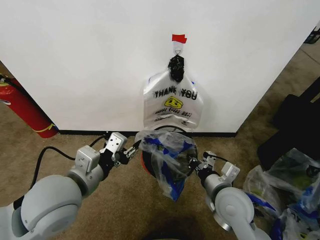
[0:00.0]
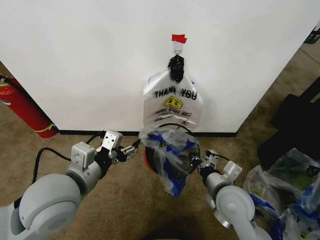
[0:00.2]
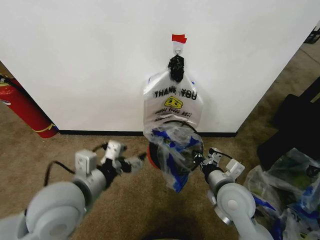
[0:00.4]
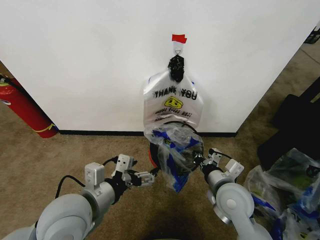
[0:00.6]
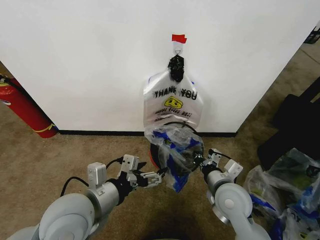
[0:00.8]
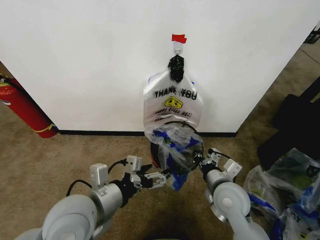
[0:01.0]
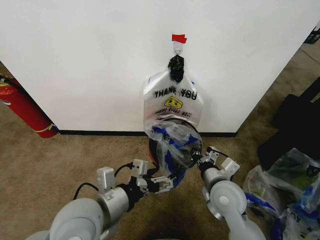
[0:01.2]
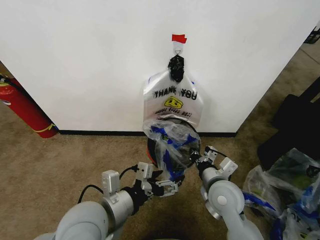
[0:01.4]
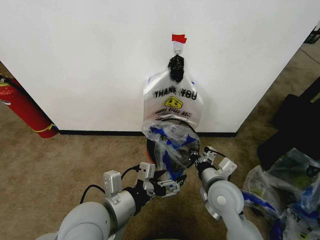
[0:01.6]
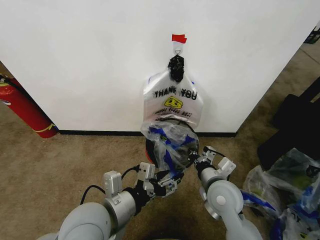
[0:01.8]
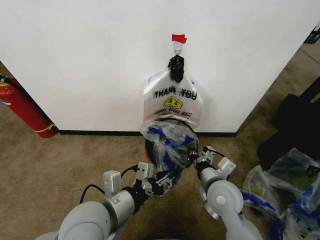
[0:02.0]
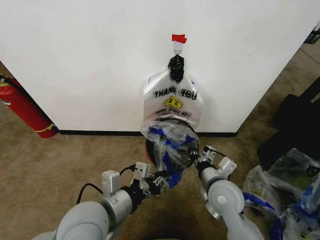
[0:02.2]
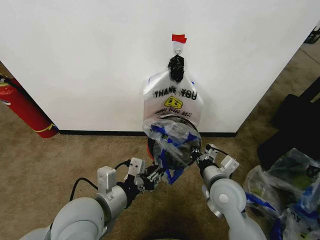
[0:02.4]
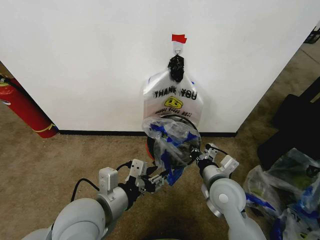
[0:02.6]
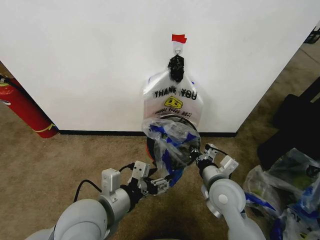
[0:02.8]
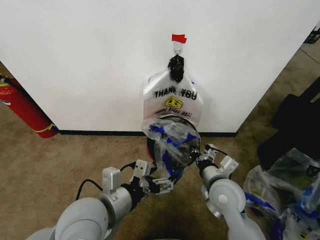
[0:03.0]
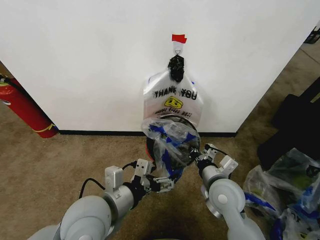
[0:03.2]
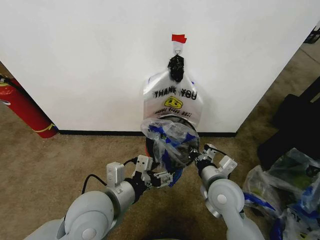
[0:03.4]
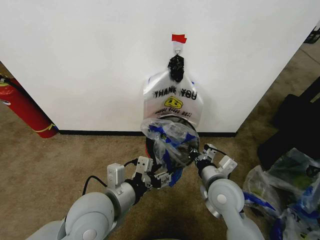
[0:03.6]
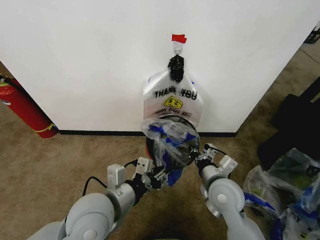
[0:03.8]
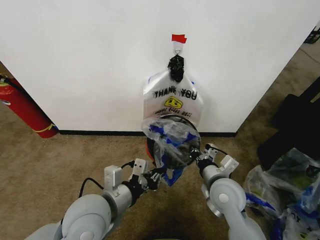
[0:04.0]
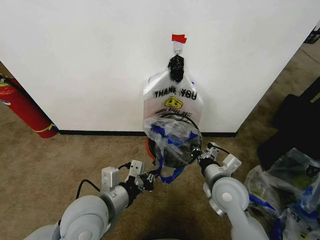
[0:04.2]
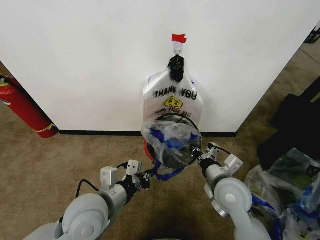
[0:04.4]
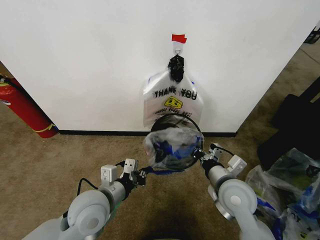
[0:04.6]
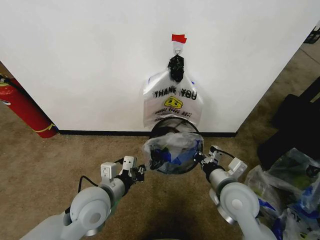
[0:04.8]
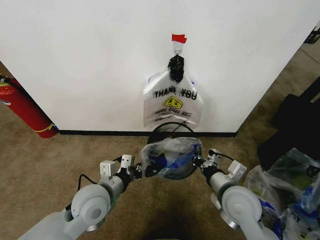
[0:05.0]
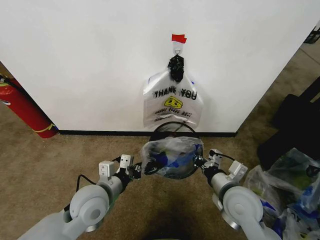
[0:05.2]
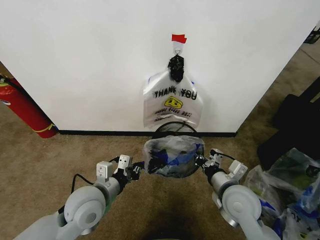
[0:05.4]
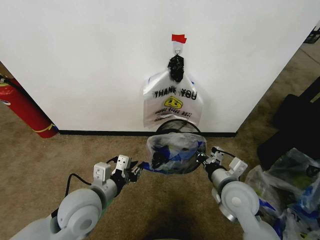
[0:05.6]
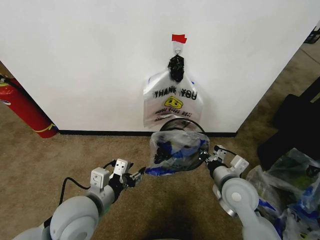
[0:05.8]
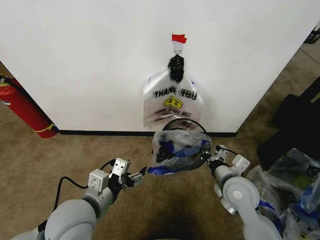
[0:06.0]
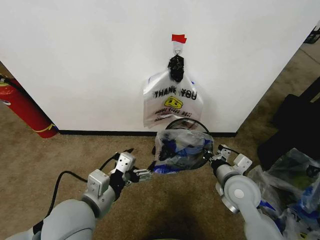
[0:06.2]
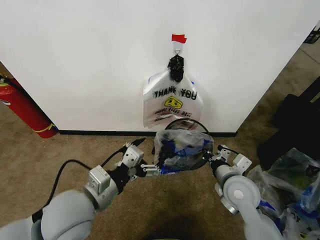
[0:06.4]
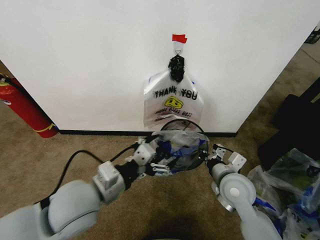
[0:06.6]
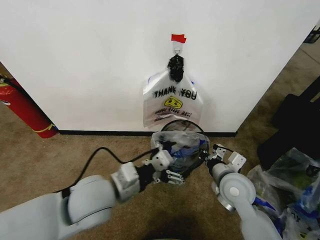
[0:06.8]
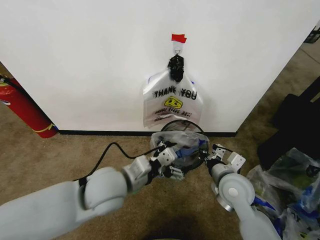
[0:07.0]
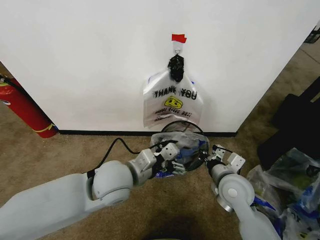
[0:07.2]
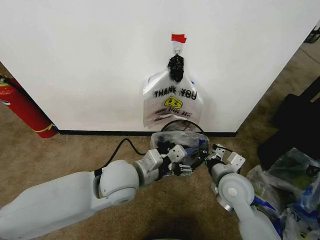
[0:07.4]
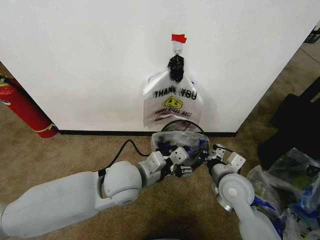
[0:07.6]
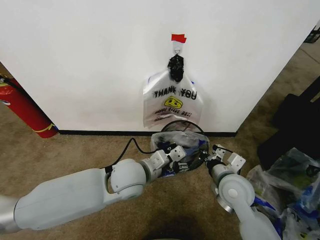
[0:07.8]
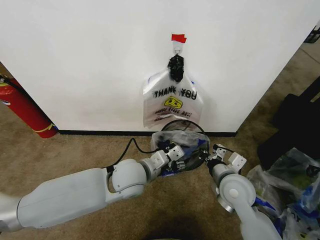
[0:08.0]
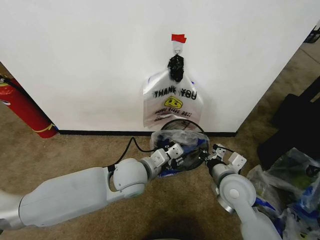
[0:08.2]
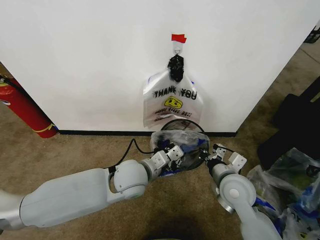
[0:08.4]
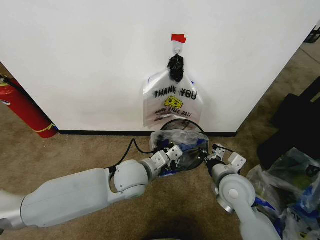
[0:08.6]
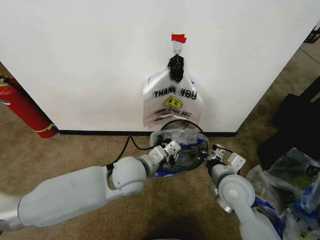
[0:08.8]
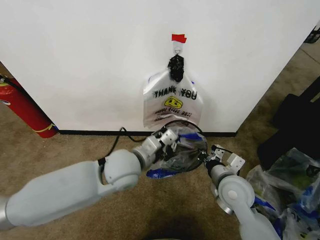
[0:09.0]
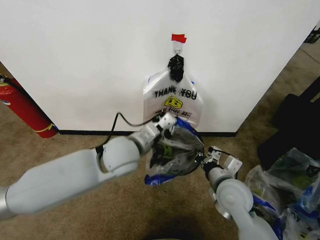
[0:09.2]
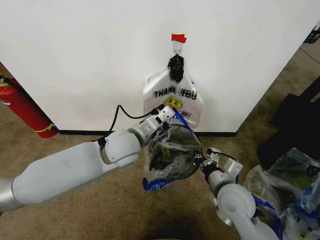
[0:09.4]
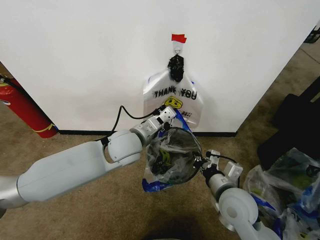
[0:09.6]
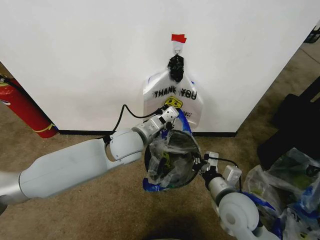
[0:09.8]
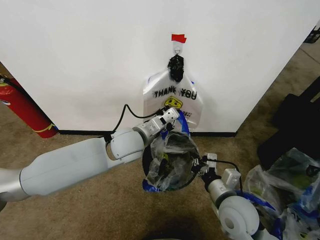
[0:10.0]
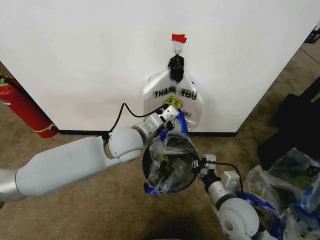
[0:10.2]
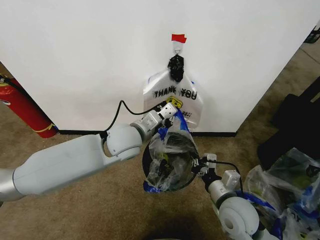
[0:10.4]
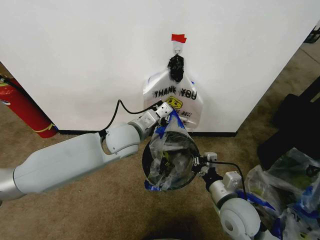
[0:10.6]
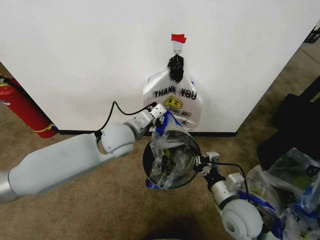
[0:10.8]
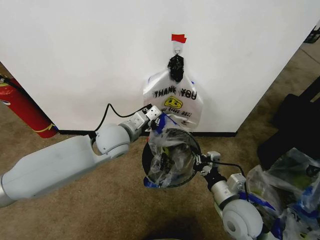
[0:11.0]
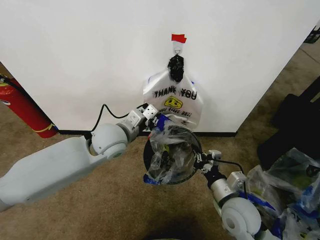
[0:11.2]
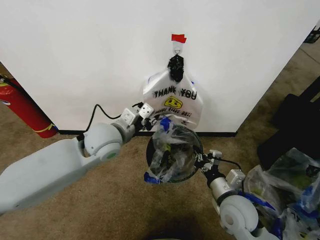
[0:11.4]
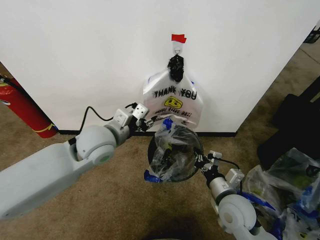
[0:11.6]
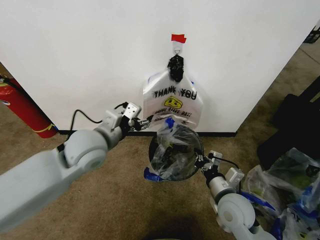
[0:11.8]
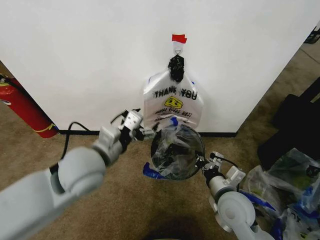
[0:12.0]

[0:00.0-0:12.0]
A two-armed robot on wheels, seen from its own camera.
Task of the whole recording: Pick up the garbage bag from the wall and place it over the trash bin.
0:00.0 to 0:01.6: The left gripper goes roughly 10 cm to the right and downward, and opens up.
0:01.6 to 0:03.0: The left gripper closes and opens again.
0:03.0 to 0:04.4: The left gripper closes its fingers.
0:04.4 to 0:06.0: The left gripper opens up.
0:06.0 to 0:07.6: The left gripper goes roughly 15 cm to the right and forward.
0:07.6 to 0:09.0: The left gripper closes.
0:09.0 to 0:10.4: The right gripper goes roughly 5 cm backward; the left gripper is displaced forward by some 5 cm.
0:10.4 to 0:12.0: The left gripper moves backward and to the left, some 15 cm, and opens its fingers.

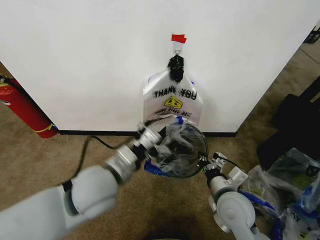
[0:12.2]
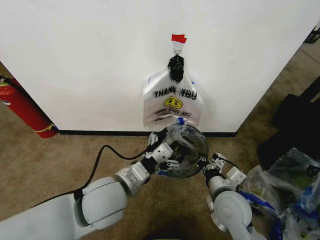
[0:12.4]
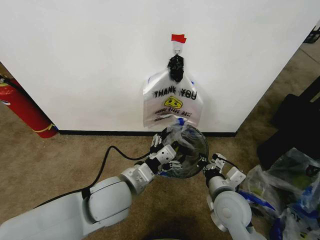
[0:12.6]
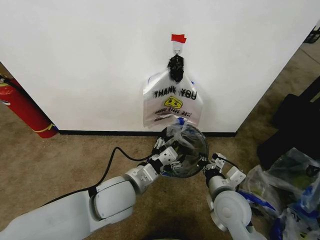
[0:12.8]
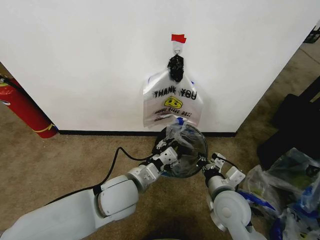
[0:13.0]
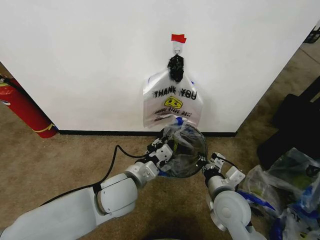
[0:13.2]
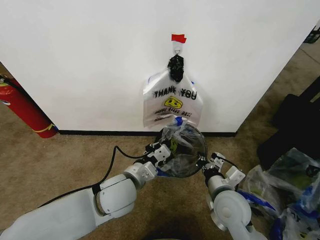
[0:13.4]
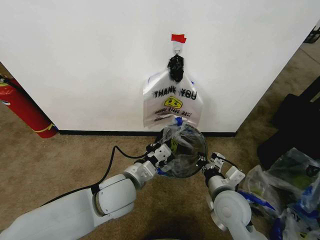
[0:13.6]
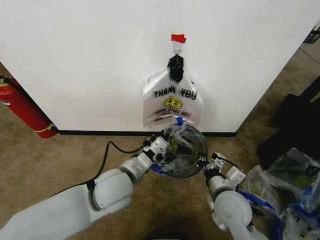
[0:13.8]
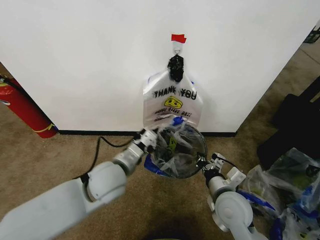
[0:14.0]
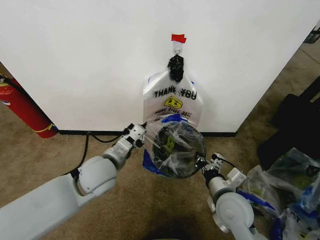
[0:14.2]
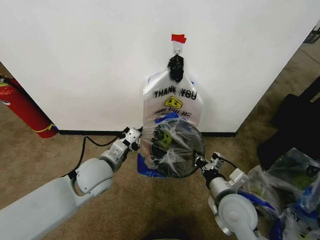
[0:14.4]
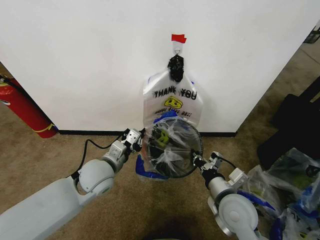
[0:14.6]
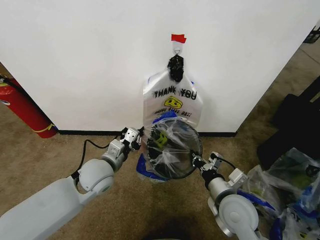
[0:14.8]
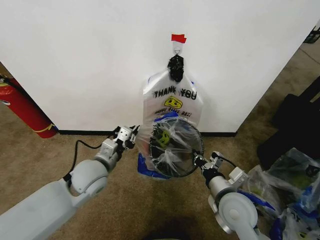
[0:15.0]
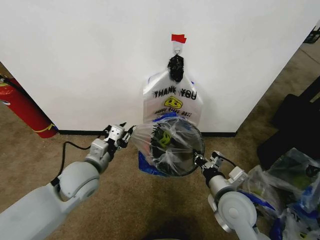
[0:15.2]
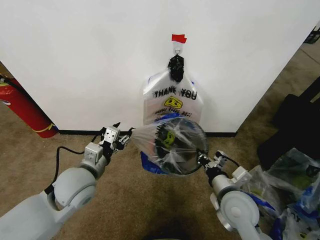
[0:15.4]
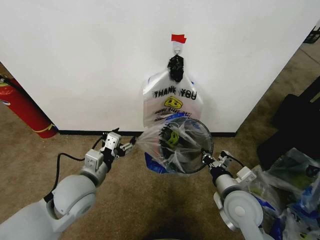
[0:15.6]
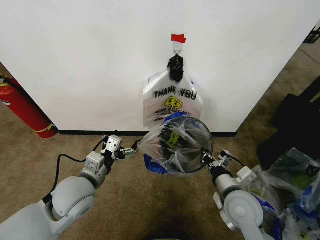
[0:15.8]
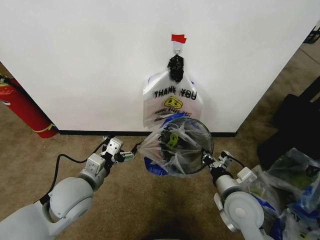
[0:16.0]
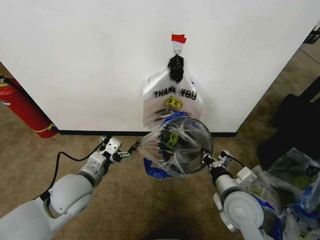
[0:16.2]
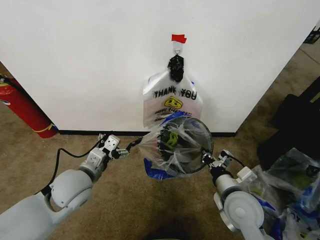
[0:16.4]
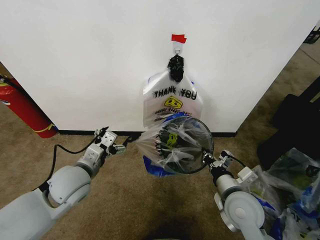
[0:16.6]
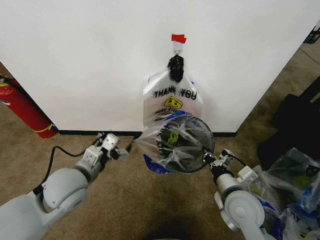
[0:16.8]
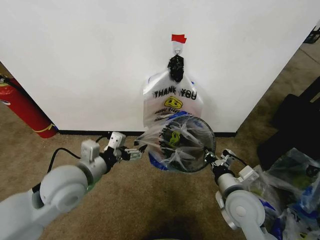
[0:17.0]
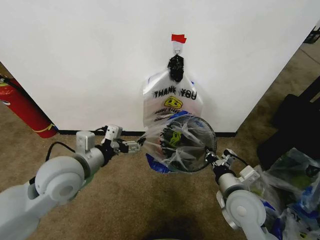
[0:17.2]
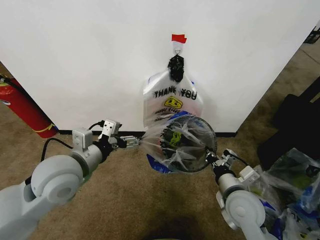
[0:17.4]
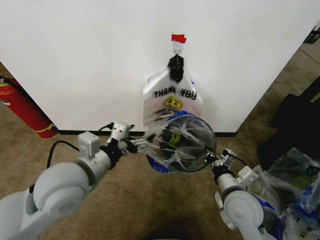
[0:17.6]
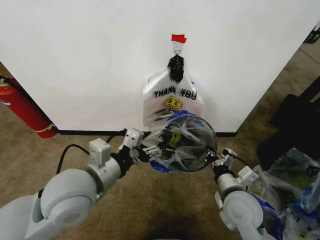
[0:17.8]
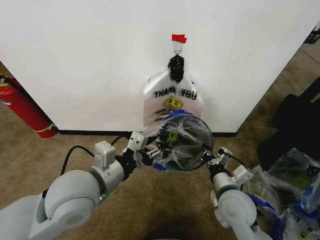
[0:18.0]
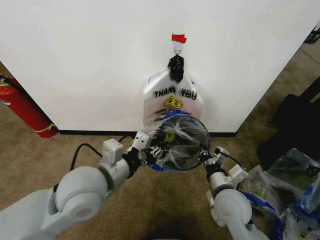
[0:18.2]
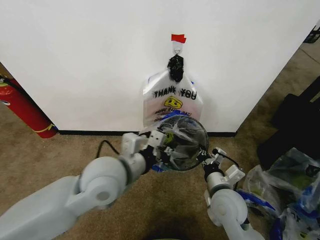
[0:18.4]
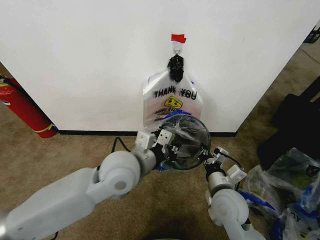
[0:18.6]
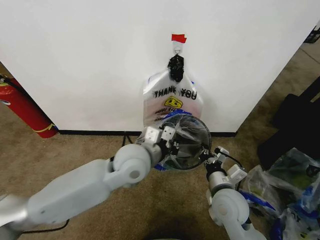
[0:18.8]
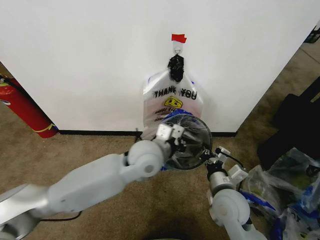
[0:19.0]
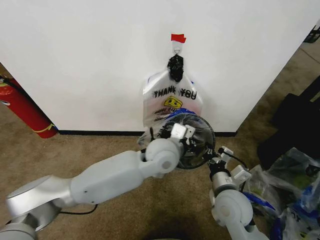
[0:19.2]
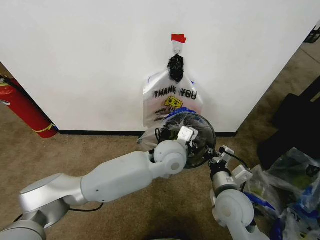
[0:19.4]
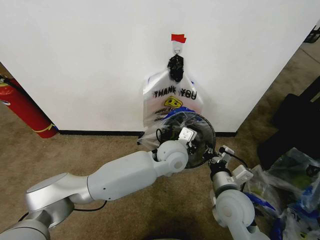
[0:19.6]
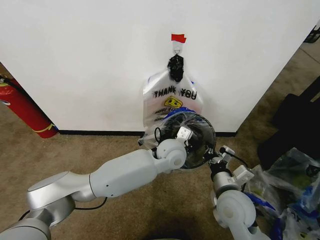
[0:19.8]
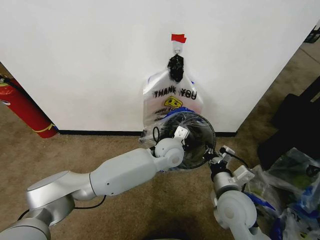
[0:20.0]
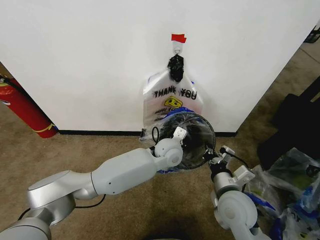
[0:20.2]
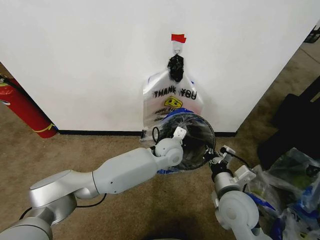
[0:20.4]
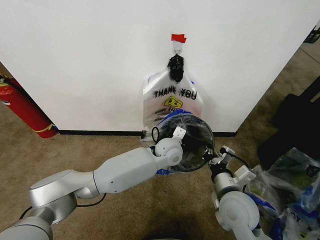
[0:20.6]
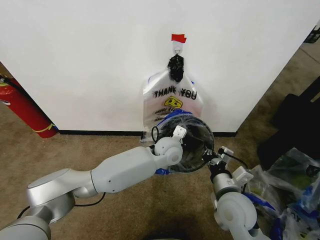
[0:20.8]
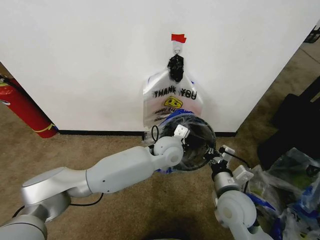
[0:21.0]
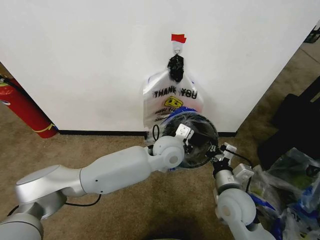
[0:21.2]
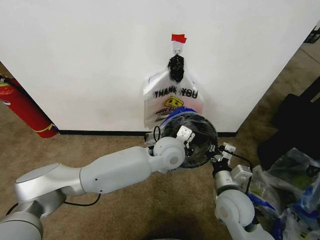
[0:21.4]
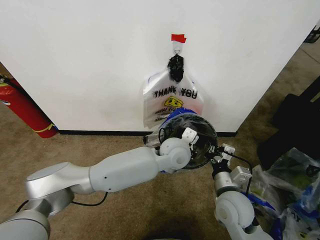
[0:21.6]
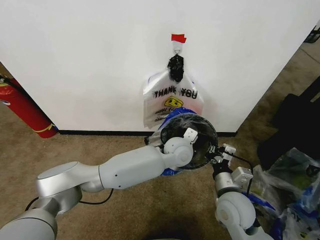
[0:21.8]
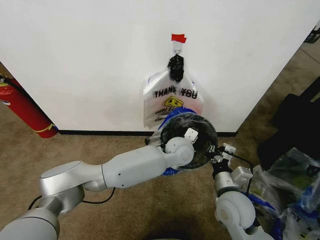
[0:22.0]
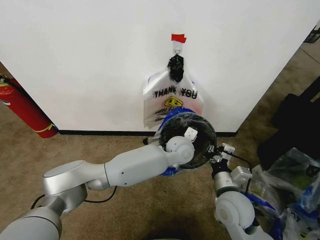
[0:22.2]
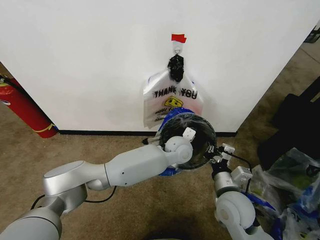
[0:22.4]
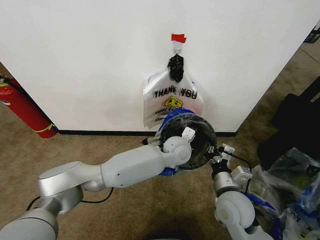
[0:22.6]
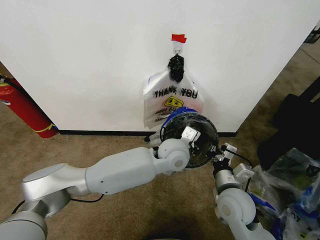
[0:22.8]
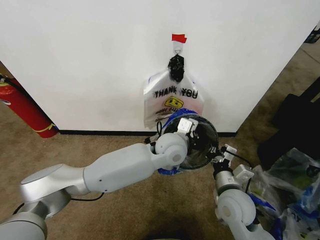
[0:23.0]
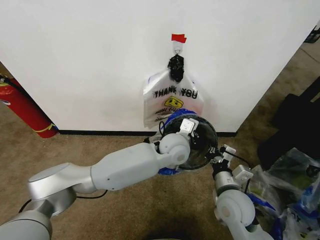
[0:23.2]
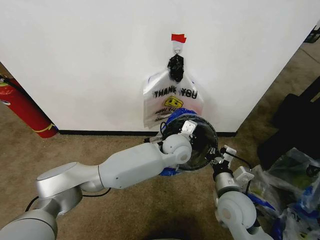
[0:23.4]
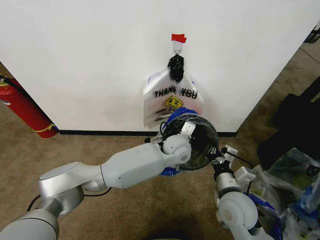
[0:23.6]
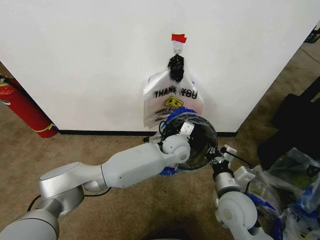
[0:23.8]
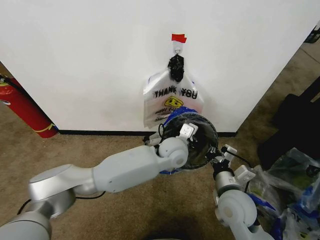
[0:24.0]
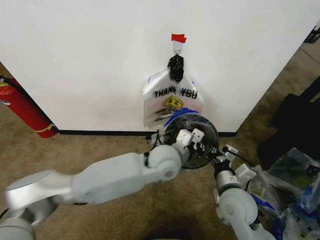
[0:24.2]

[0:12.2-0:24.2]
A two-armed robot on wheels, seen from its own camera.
Task of the whole recording: Pick up the garbage bag from the wall and place it over the trash bin.
0:12.2 to 0:13.8: The left gripper moves roughly 5 cm, and closes.
0:13.8 to 0:15.2: The left gripper heads to the left, covering about 10 cm.
0:15.2 to 0:16.6: The left gripper opens.
0:16.6 to 0:18.2: The left gripper shifts roughly 15 cm upward, to the right and backward, and closes.
0:18.2 to 0:19.8: The left gripper is displaced to the right, forward and downward by some 25 cm.
0:19.8 to 0:21.2: The grippers make only small movements.
0:21.2 to 0:22.6: The left gripper moves roughly 5 cm.
0:22.6 to 0:24.2: The left gripper swings forward and backward, about 10 cm each way, with 2 reversals.
